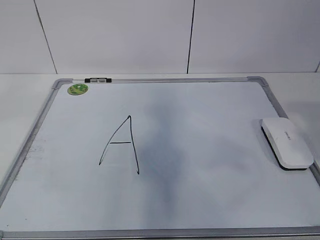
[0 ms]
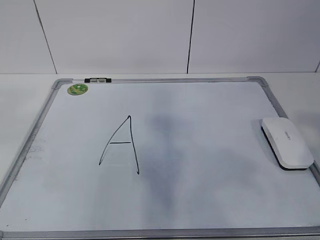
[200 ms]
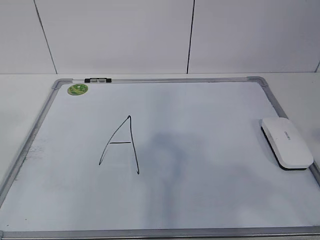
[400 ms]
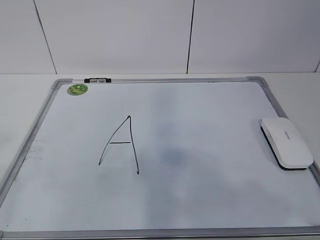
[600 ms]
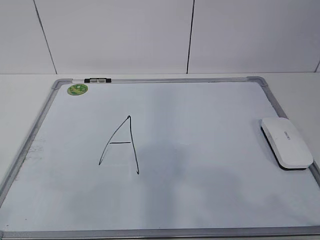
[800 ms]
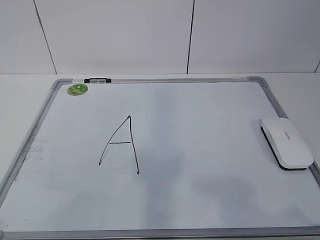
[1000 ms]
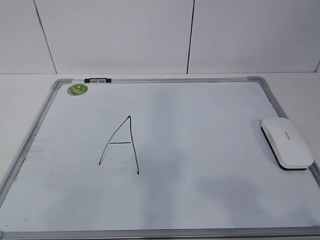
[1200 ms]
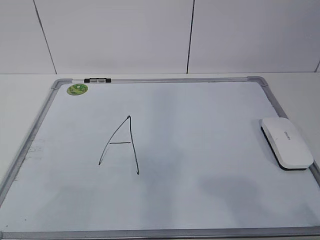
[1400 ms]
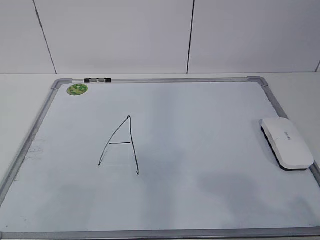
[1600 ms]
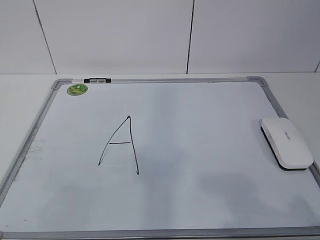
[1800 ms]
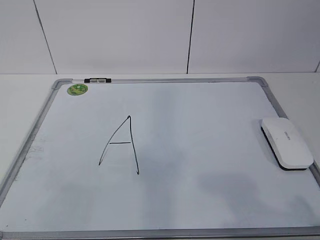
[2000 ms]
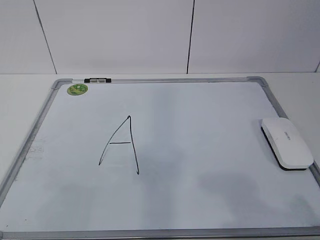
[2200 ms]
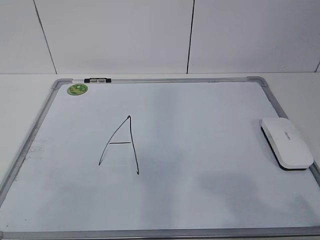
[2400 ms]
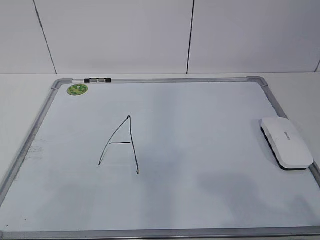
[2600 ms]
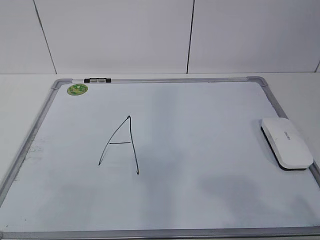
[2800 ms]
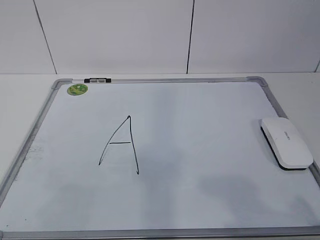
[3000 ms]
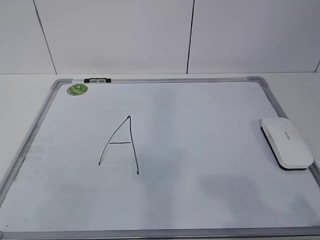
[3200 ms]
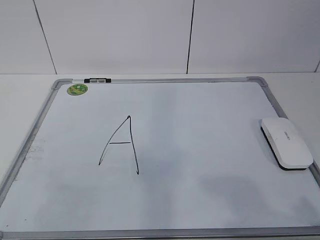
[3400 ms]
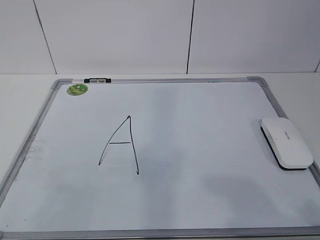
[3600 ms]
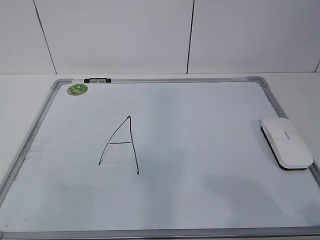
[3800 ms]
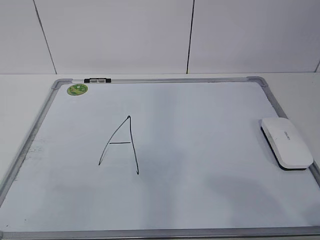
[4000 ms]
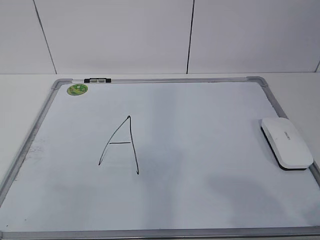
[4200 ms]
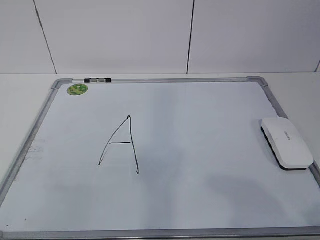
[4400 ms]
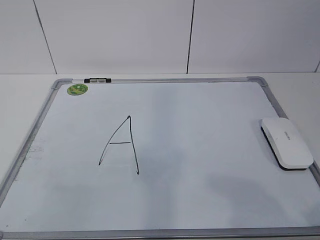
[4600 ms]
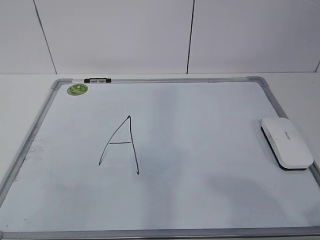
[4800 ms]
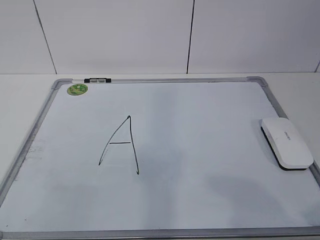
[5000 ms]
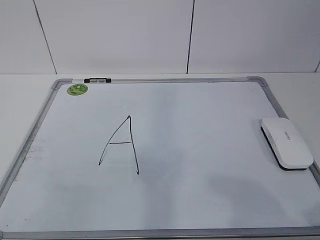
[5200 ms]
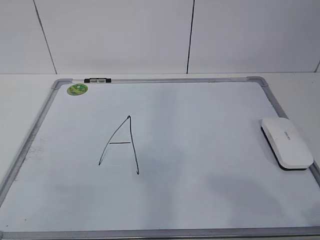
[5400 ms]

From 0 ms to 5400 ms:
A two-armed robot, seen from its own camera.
Task of the whole recording: pick up the eraser on the blackboard and erase the letter "a".
From 0 ms to 1400 ms: The right gripper goes some 15 cm downward and backward. Meanwhile the left gripper is displaced downward and backward by about 20 cm.
From 1400 ms to 2800 ms: Both grippers stay put.
From 4000 ms to 5400 ms: Neither gripper changes place.
